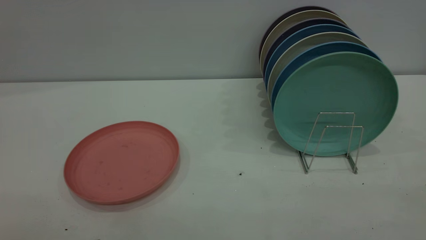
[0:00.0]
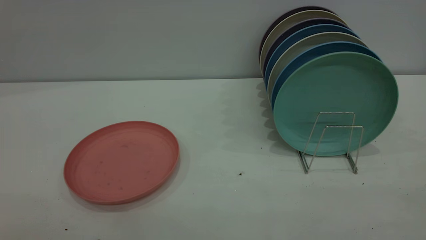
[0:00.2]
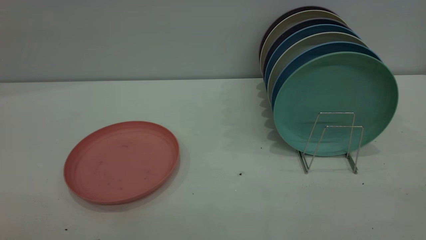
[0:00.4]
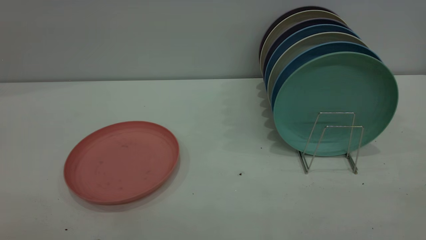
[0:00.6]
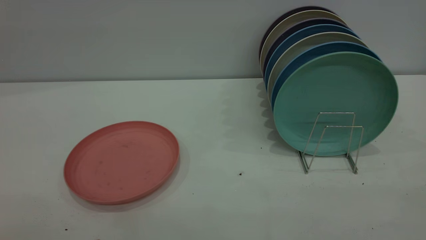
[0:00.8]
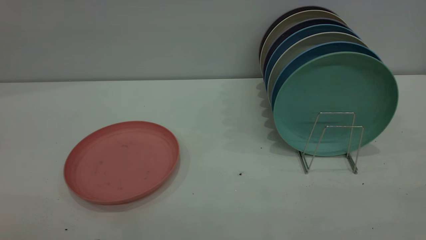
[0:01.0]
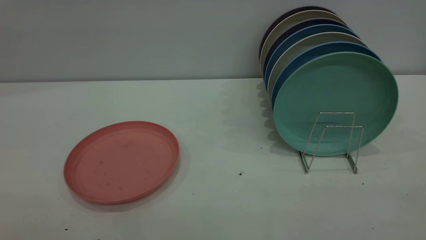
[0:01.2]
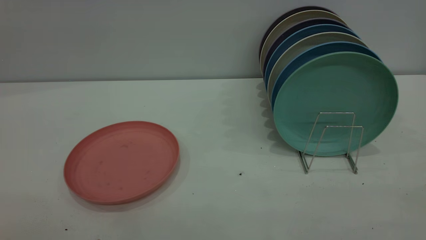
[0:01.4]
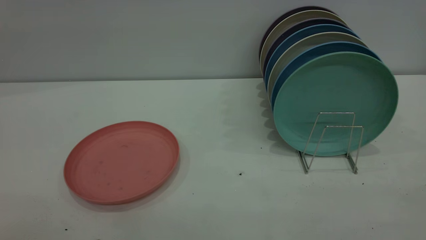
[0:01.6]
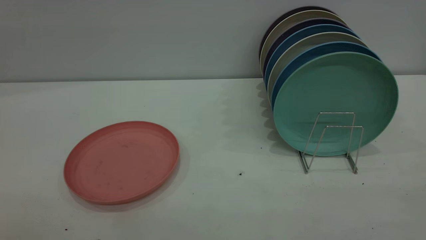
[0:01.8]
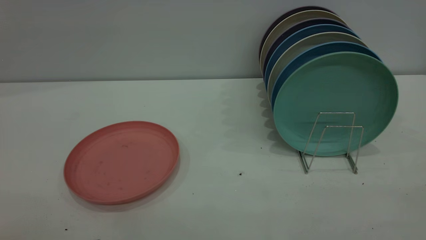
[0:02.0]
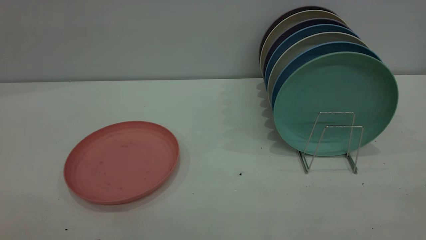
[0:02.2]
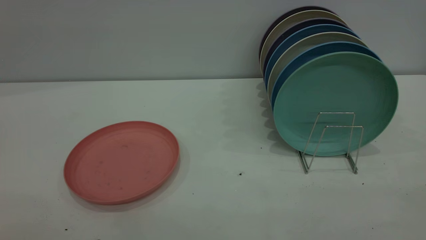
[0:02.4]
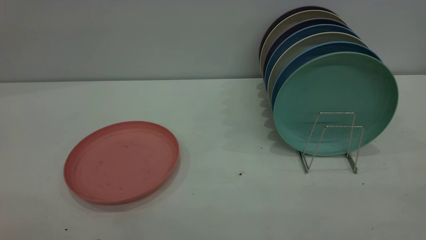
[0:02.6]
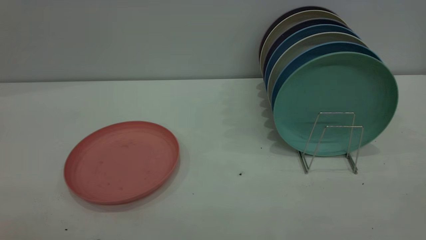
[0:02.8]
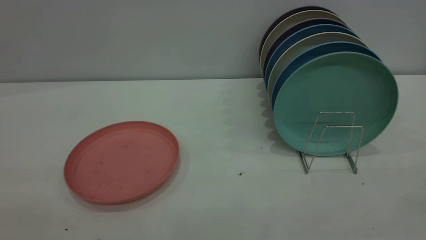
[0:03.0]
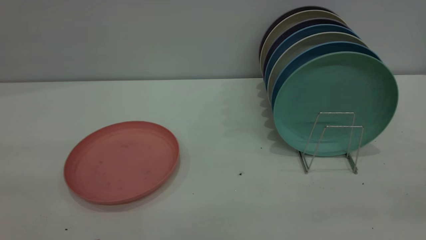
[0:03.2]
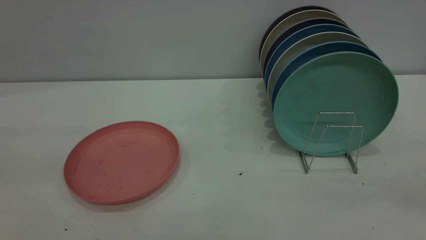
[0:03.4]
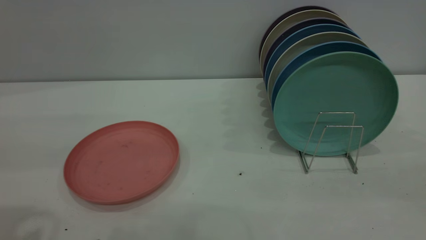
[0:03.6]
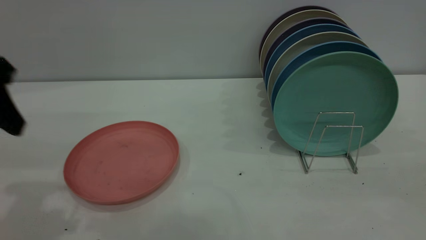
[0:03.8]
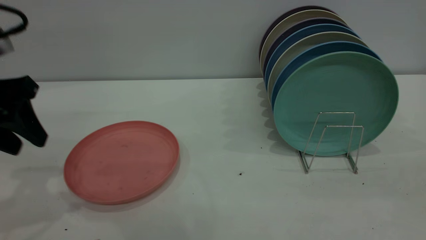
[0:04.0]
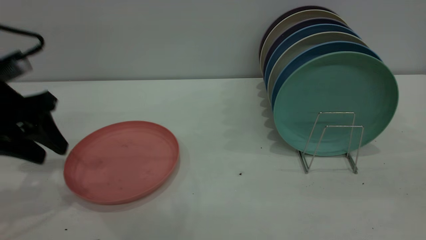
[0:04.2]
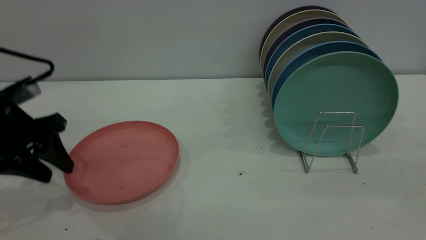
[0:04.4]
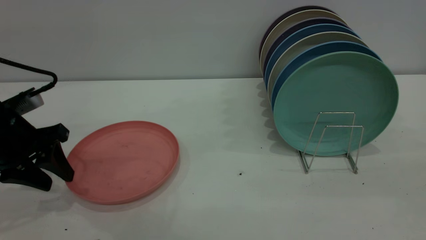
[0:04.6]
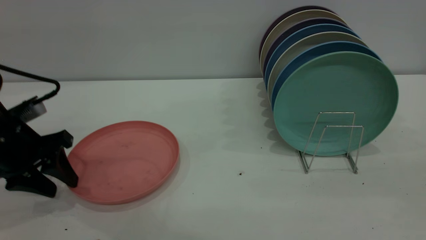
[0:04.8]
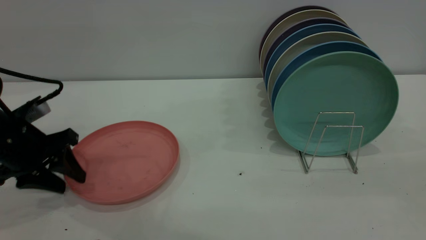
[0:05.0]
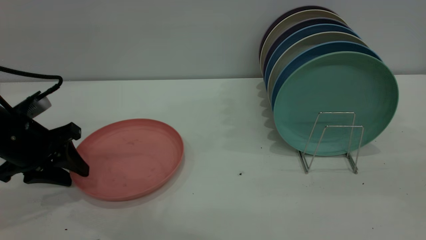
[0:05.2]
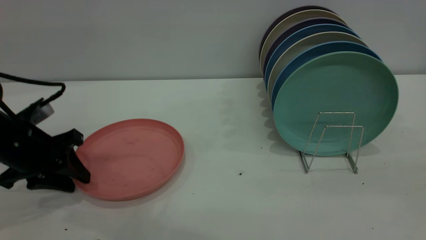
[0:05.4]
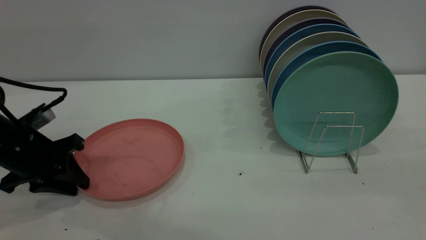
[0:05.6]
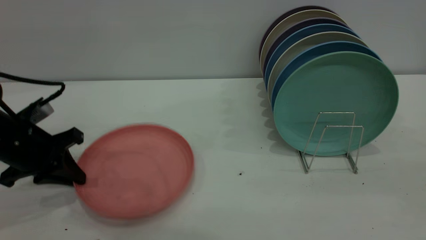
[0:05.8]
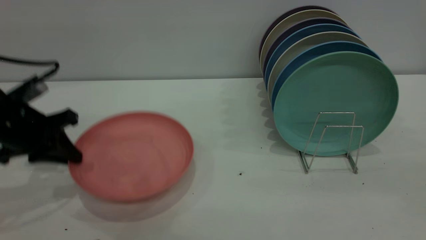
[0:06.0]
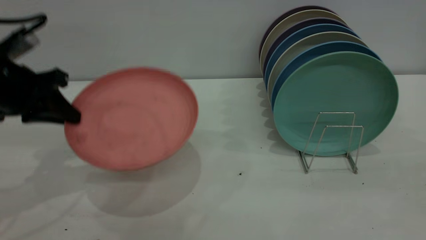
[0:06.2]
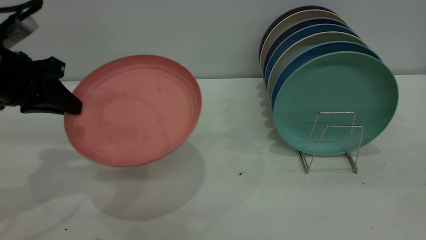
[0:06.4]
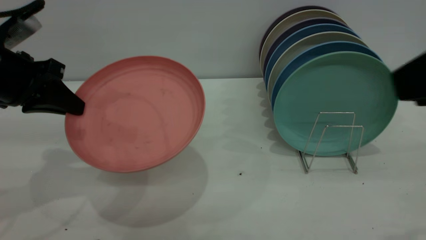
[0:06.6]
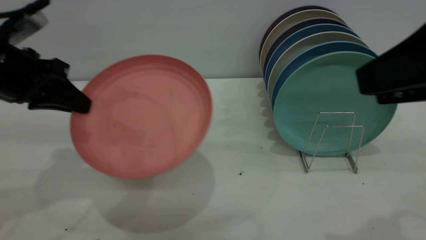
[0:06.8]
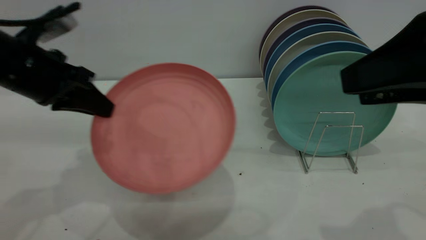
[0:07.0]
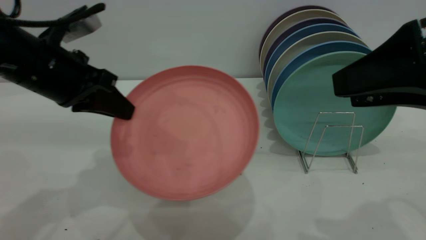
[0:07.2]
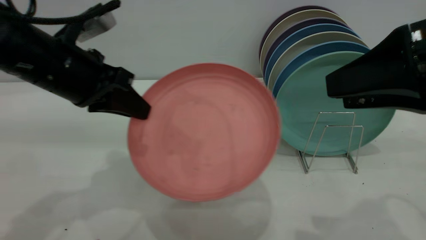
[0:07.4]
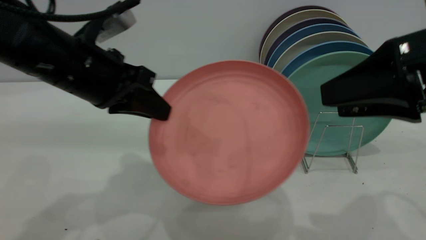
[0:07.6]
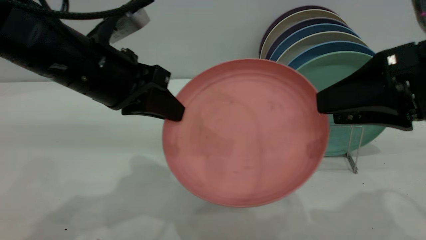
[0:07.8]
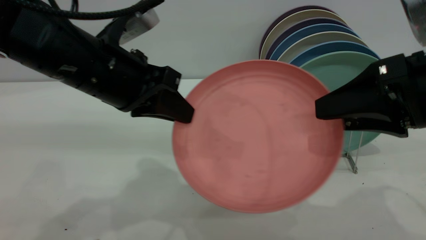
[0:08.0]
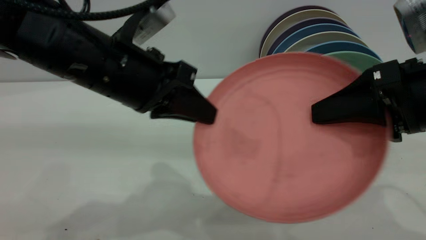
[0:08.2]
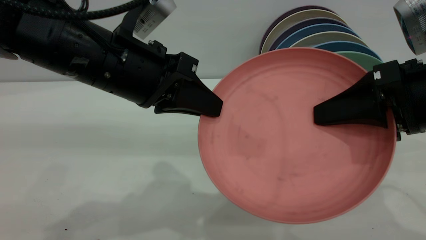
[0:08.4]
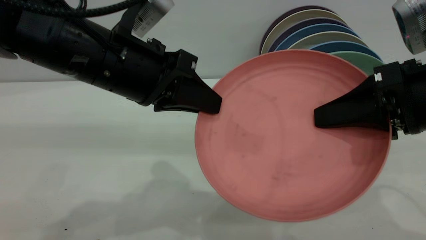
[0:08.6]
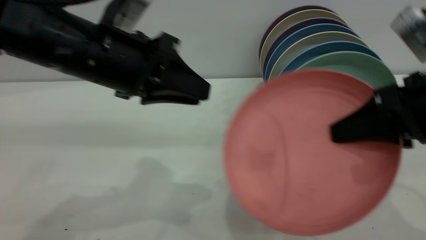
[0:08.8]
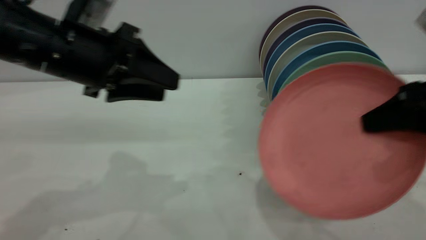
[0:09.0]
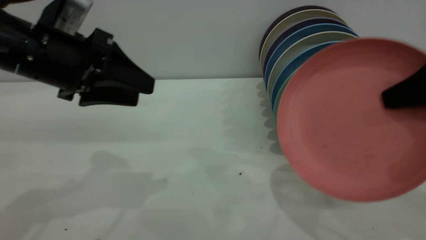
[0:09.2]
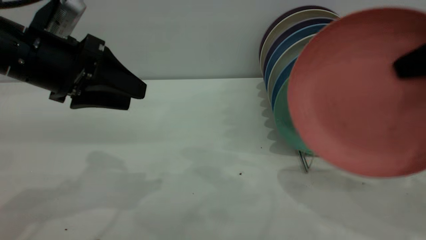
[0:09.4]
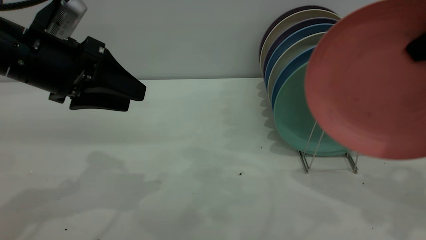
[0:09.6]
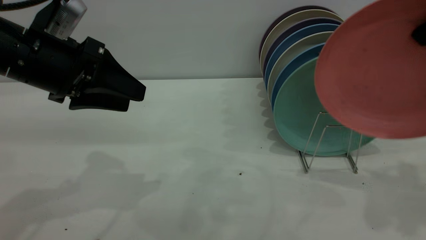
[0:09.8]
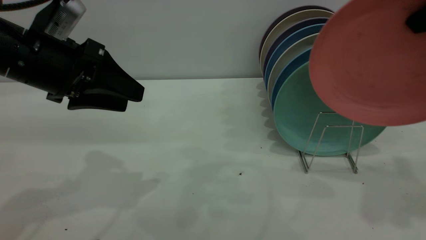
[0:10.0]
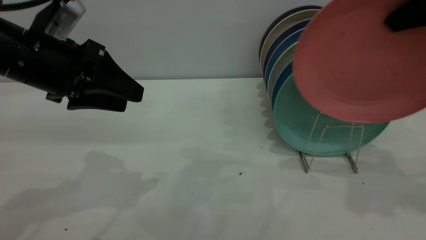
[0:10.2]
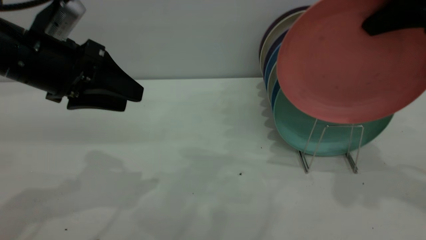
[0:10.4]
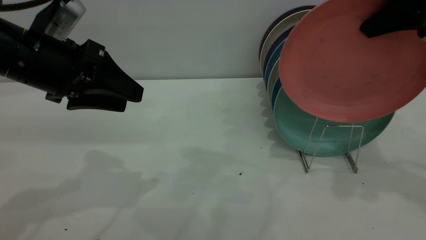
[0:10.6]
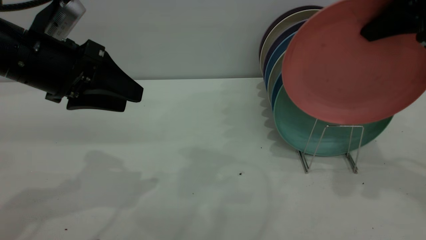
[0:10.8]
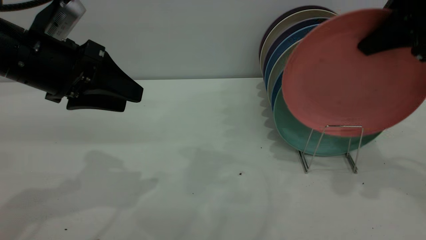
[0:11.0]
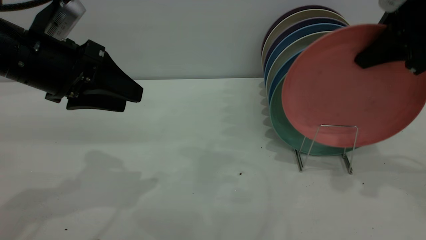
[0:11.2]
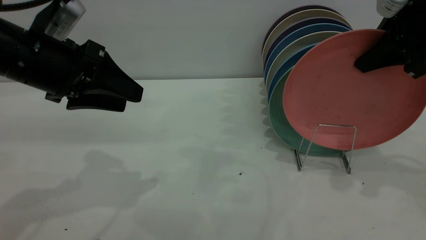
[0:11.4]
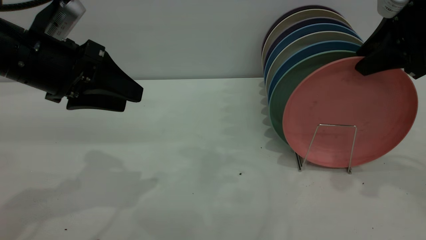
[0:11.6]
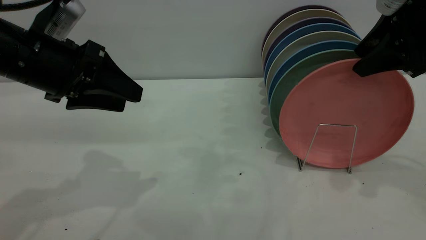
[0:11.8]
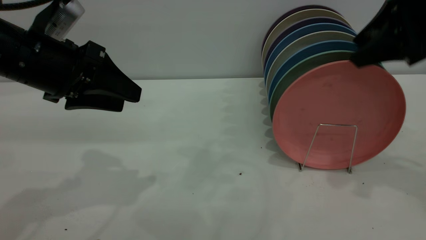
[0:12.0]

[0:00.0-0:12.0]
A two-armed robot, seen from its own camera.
Task of the whole recording: put the plate on the plate rack.
Step, 0:00.0 to 0:06.0: Pick up the plate with the left gripper.
Step, 0:06.2 to 0:08.6: Pass the plate from the left gripper to the right gripper.
Step, 0:08.8 to 0:11.8: Place the plate on the shelf.
0:00.0 to 0:01.6: Both grippers stay put.
0:03.0 to 0:04.4: The left gripper is displaced forward and downward by some 35 cm.
0:04.4 to 0:06.0: The left gripper closes.
0:06.0 to 0:07.6: The left gripper shifts approximately 15 cm to the right and upward, while the right gripper moves forward and downward, some 15 cm.
0:07.6 to 0:09.0: The right gripper changes place by approximately 5 cm, and closes its fingers, while the left gripper opens.
0:09.0 to 0:10.4: The right gripper goes roughly 15 cm upward and forward.
0:10.4 to 0:12.0: The right gripper opens up.

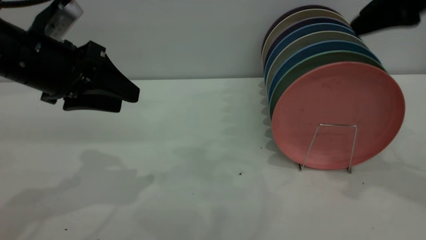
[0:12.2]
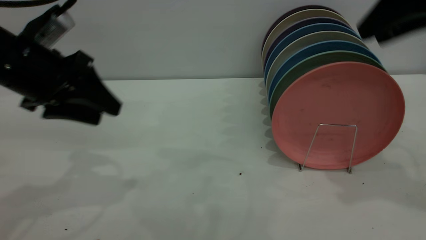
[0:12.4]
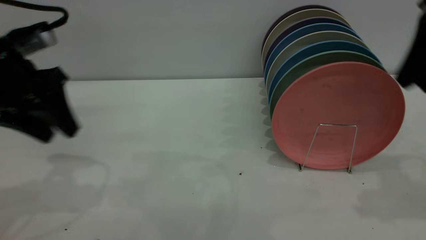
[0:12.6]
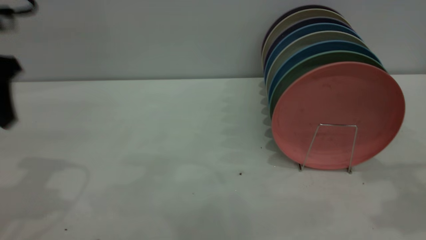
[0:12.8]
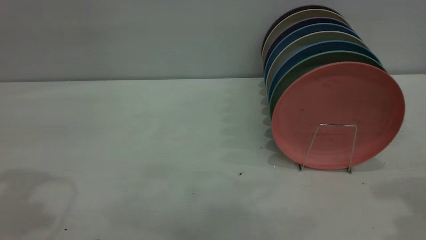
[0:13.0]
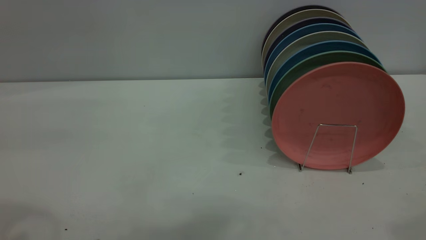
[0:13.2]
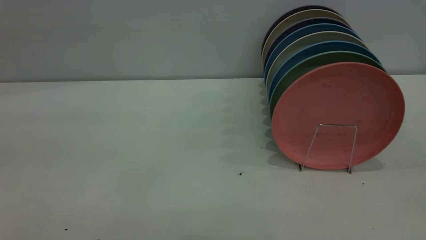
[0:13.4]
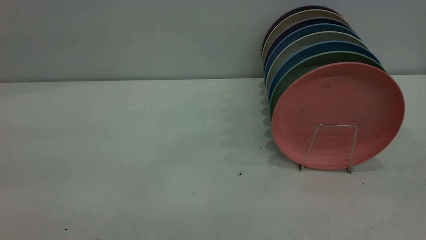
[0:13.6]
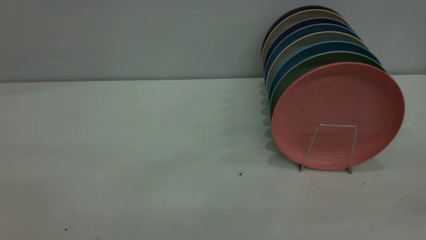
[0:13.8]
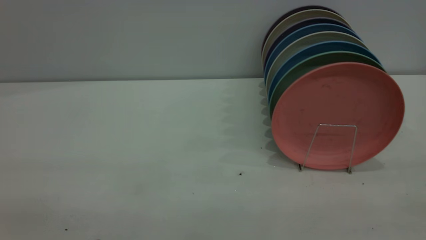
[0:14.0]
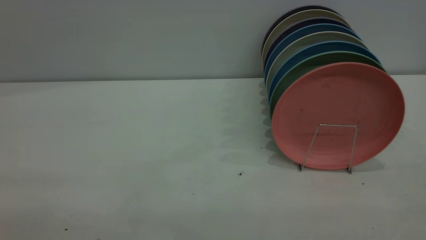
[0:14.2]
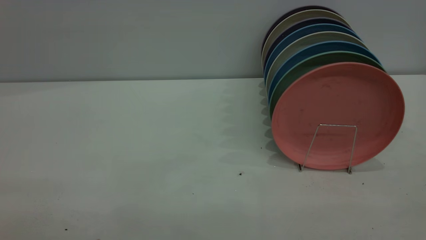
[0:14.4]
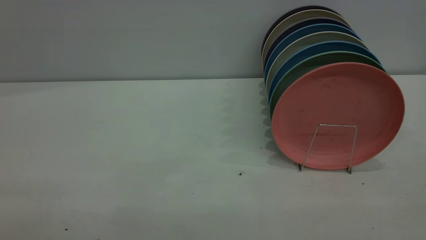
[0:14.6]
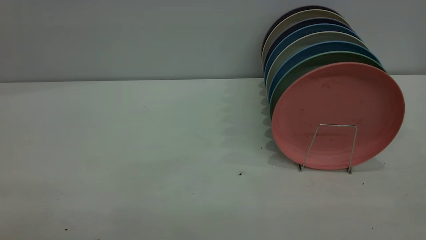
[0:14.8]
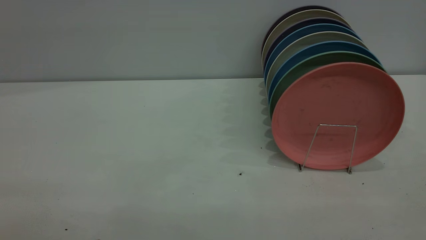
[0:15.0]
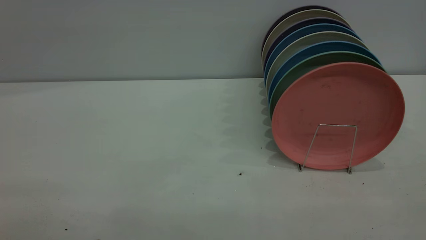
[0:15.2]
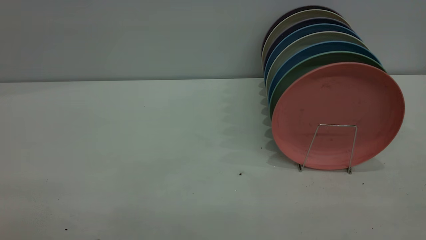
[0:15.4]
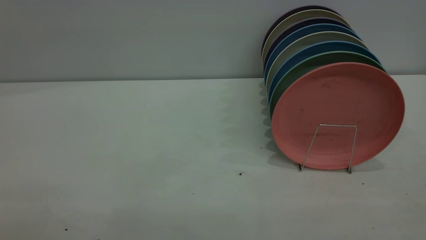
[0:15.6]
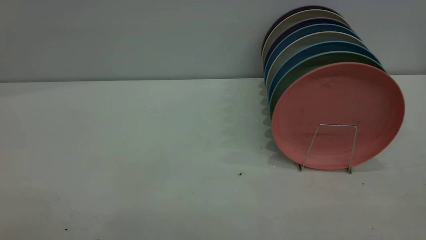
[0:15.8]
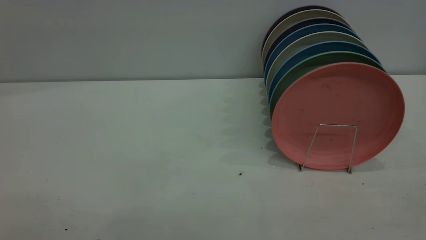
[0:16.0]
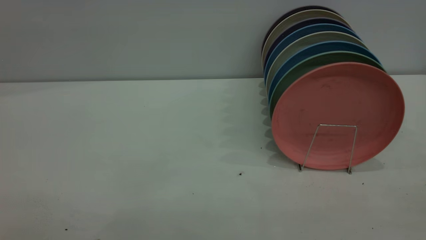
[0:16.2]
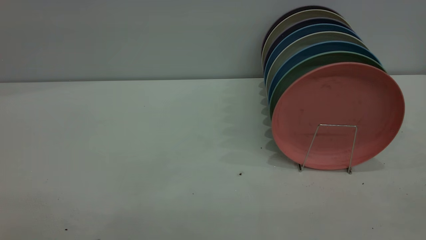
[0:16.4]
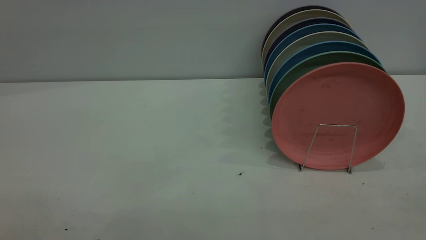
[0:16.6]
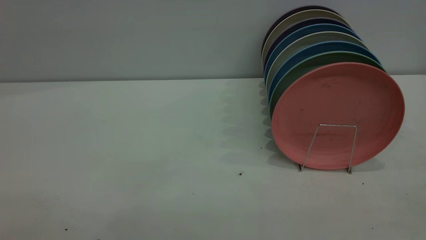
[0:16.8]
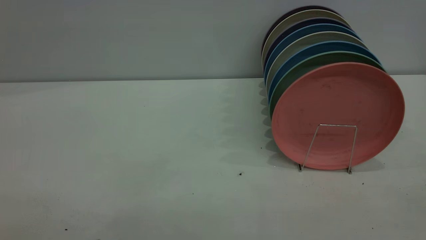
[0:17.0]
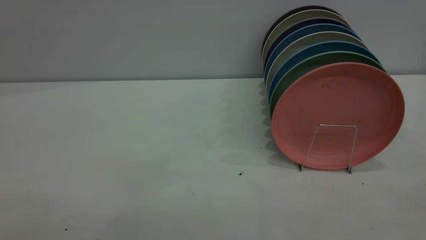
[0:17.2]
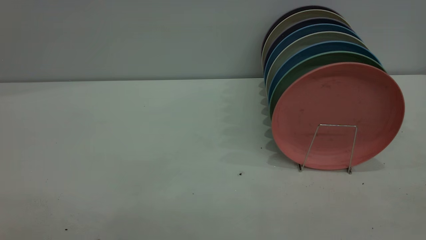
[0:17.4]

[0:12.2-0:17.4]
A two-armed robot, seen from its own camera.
Task of the whole recording: put the plate on the plate rack.
0:12.2 to 0:14.0: The right gripper shifts approximately 30 cm backward; the left gripper travels backward and upward by approximately 35 cm.
